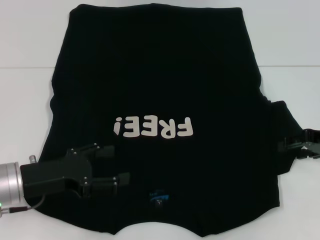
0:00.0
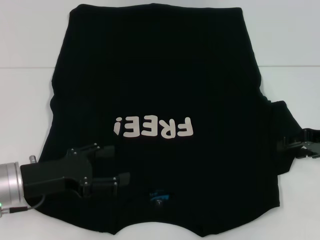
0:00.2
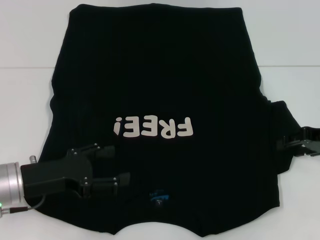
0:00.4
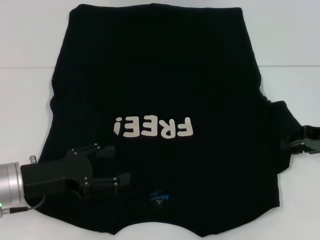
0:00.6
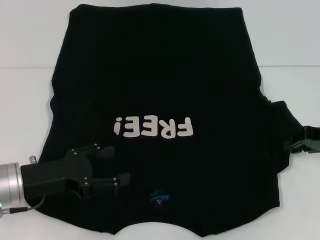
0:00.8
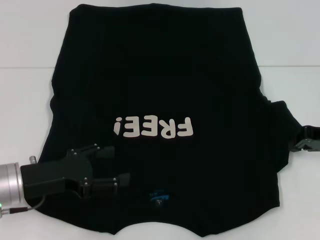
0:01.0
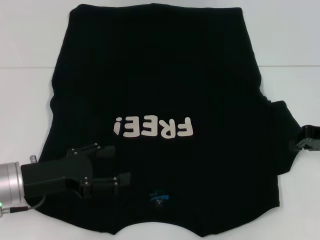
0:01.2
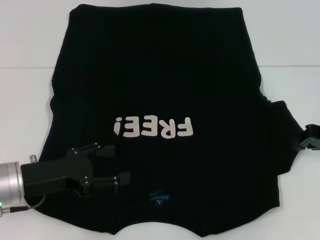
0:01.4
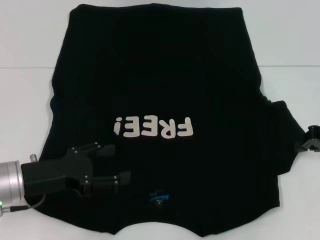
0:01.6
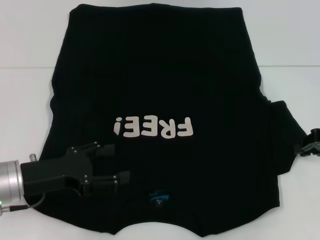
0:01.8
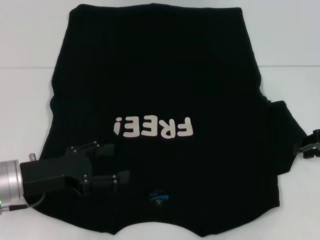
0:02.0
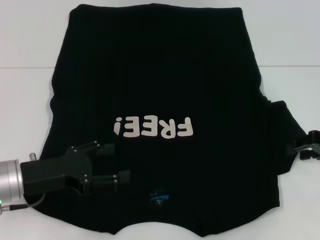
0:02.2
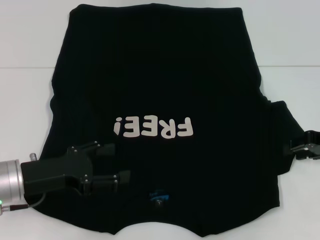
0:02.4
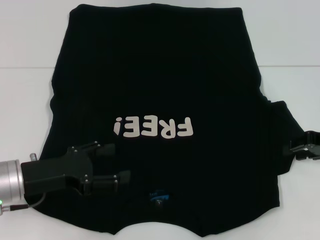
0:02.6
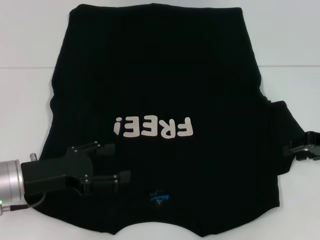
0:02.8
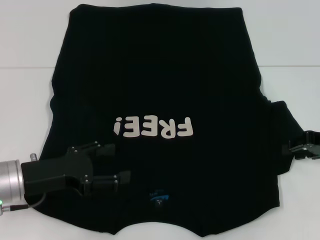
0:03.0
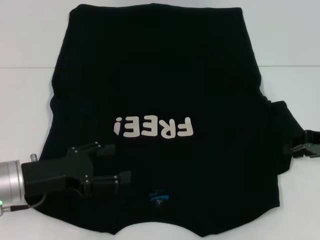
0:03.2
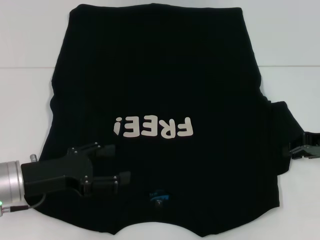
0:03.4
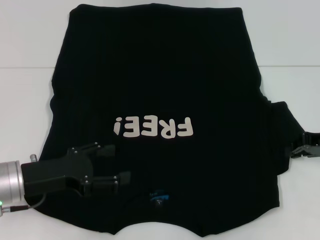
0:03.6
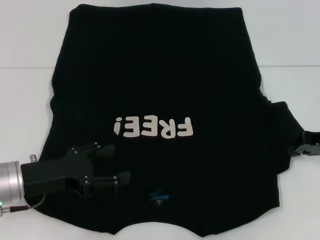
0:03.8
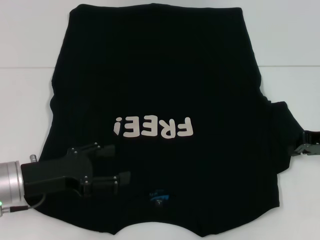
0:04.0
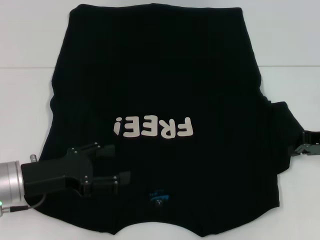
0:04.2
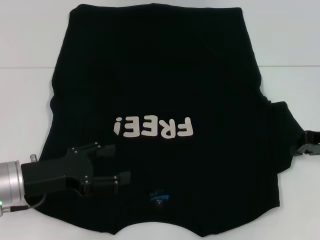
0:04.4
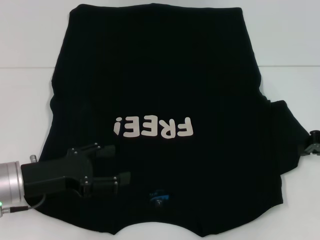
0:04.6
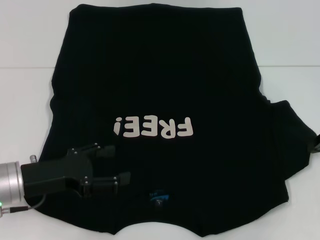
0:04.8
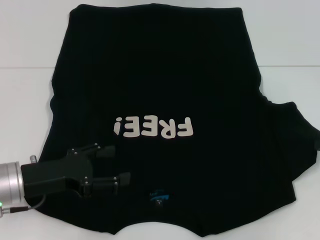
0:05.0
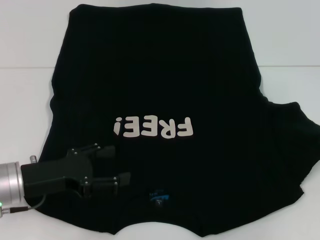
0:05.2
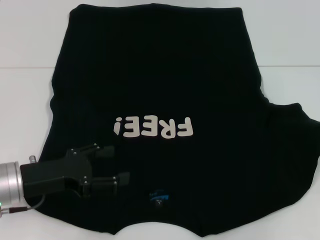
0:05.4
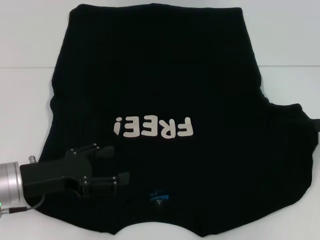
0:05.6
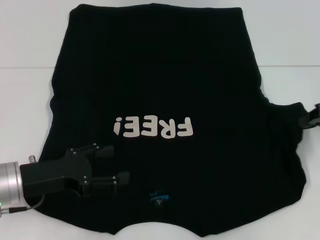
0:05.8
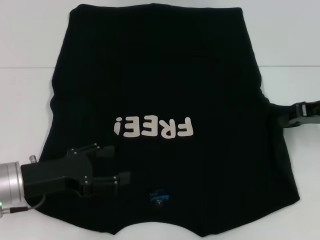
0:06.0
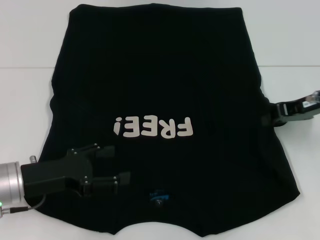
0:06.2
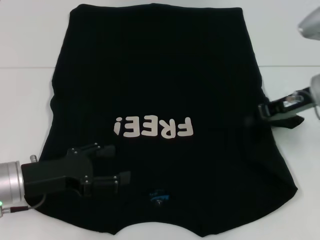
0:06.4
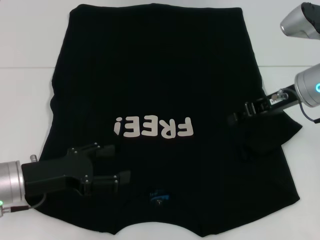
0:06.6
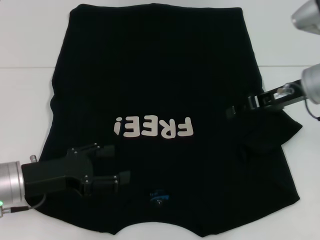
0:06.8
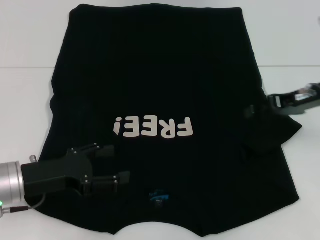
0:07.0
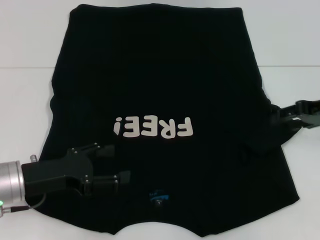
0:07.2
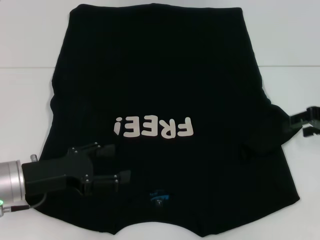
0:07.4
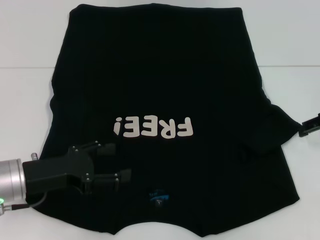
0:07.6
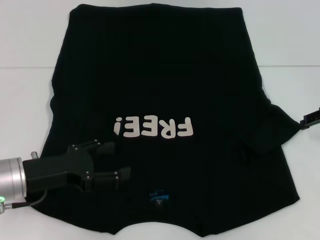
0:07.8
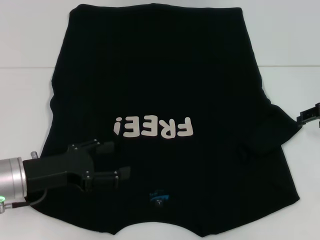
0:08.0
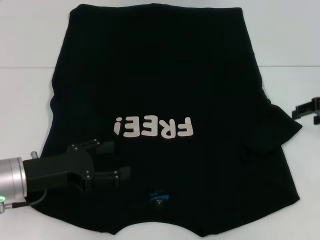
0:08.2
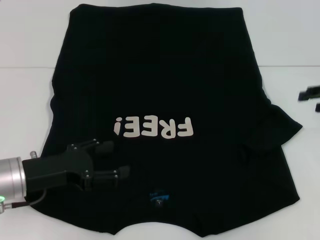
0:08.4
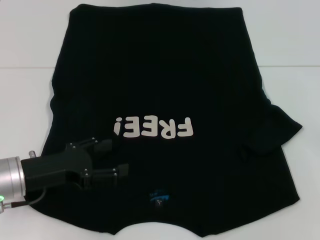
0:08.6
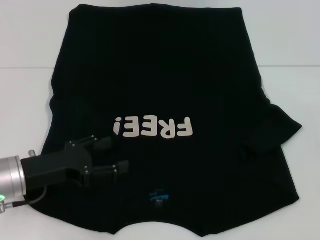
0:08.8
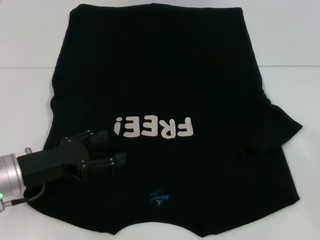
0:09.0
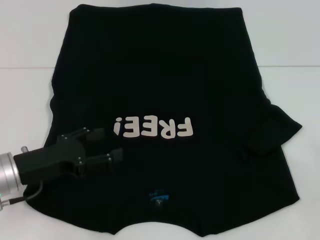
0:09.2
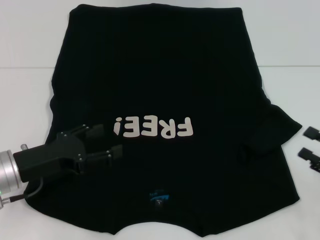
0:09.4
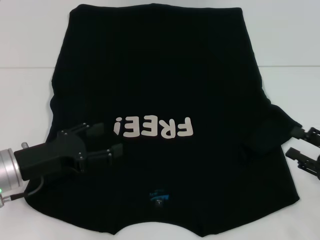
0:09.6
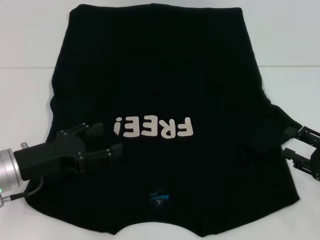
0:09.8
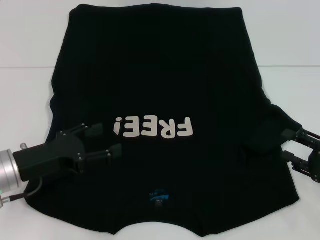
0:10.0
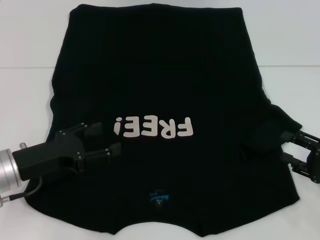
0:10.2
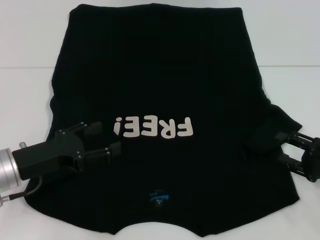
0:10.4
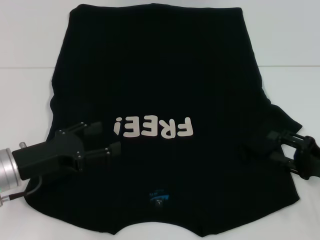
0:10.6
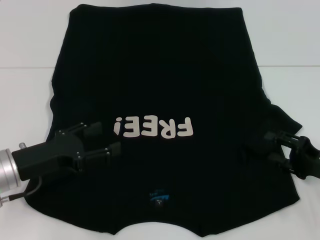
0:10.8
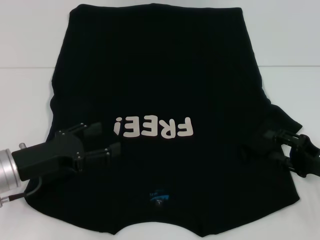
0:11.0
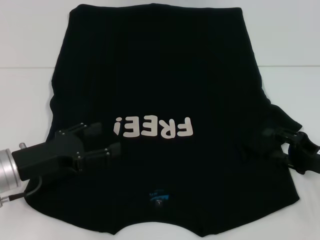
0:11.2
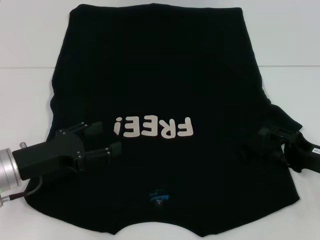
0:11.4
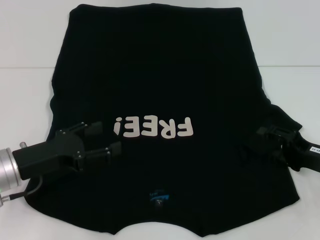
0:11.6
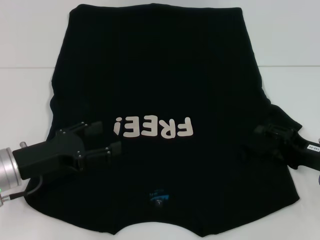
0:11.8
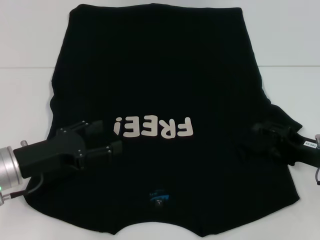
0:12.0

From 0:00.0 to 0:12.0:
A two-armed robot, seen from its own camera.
Step, from 0:00.0 to 0:06.6: Fold the bottom right sleeve with your right hand.
From 0:01.6 to 0:03.0: The right gripper opens up.
From 0:04.4 to 0:06.0: The right gripper ends up approximately 5 cm from where it was.
From 0:06.0 to 0:07.6: The right gripper goes to the left and returns, roughly 10 cm each way, and opens its fingers.
From 0:09.0 to 0:10.4: The right gripper heads to the left, covering about 5 cm.
From 0:10.4 to 0:12.0: The right gripper changes place by approximately 5 cm.

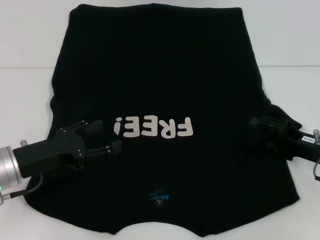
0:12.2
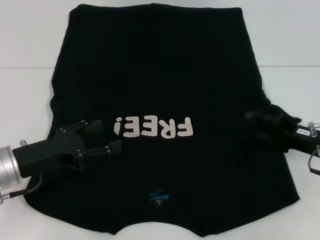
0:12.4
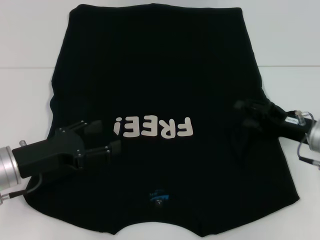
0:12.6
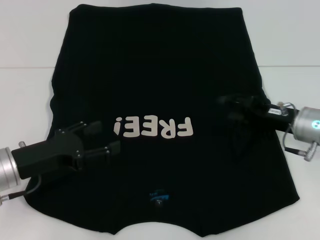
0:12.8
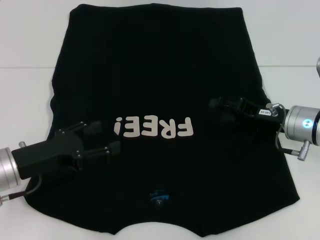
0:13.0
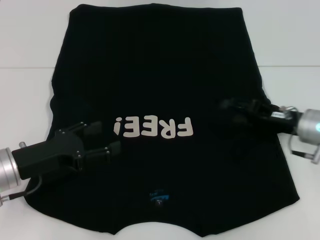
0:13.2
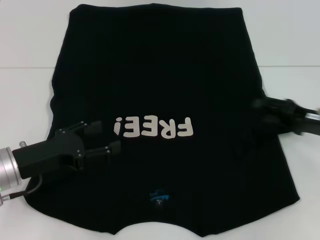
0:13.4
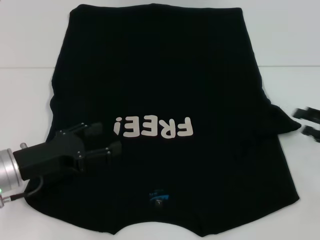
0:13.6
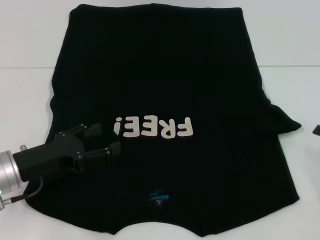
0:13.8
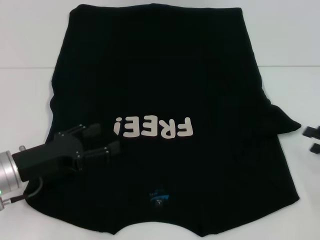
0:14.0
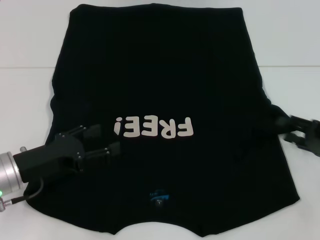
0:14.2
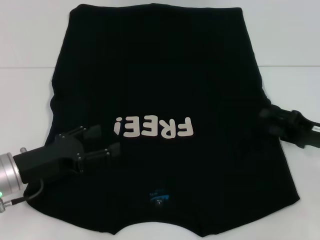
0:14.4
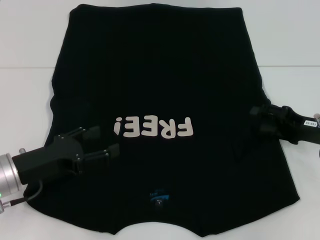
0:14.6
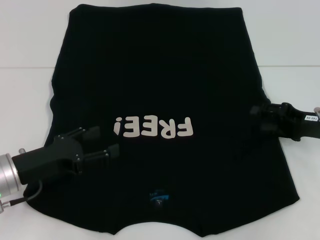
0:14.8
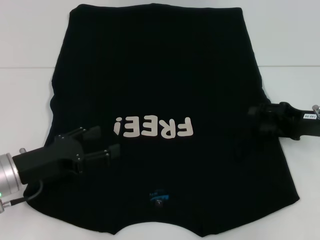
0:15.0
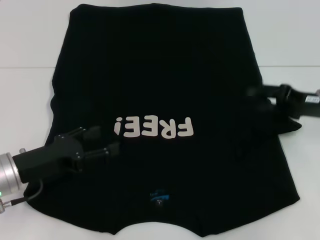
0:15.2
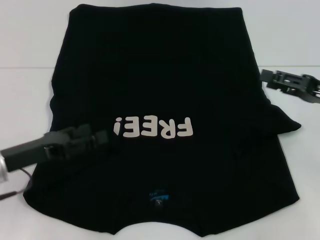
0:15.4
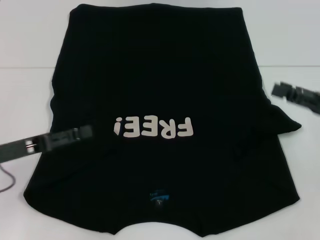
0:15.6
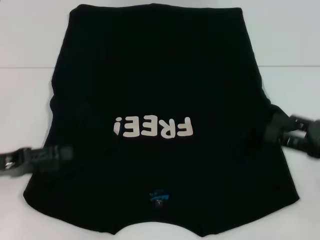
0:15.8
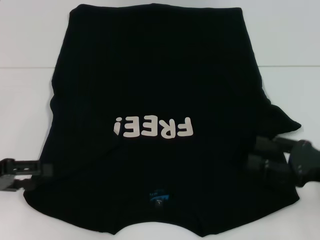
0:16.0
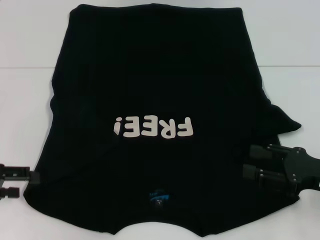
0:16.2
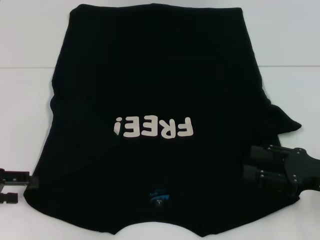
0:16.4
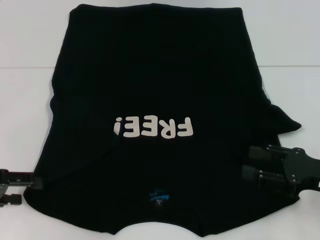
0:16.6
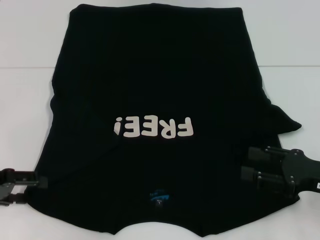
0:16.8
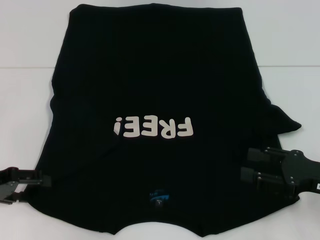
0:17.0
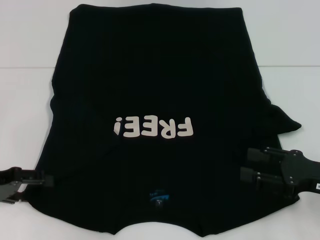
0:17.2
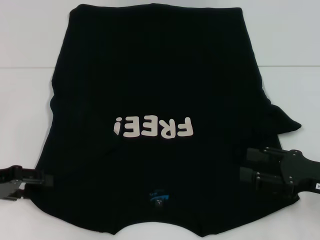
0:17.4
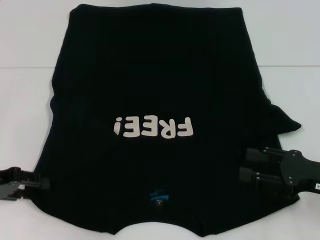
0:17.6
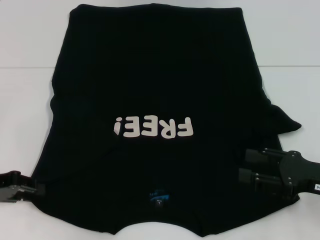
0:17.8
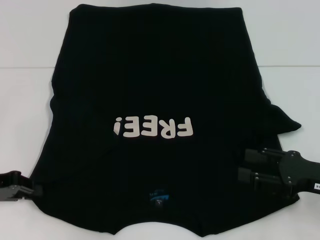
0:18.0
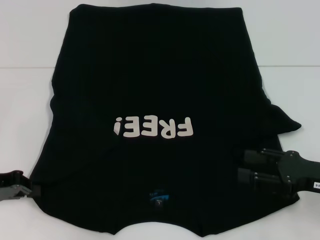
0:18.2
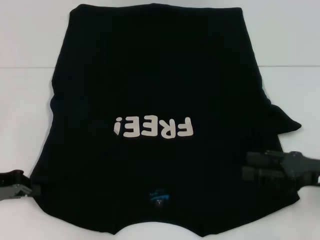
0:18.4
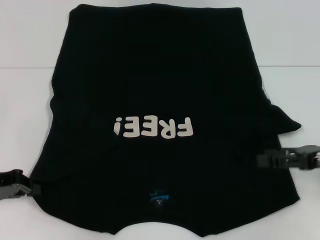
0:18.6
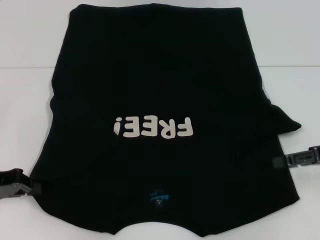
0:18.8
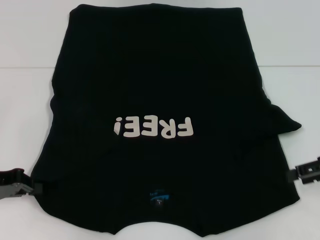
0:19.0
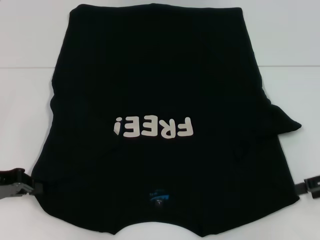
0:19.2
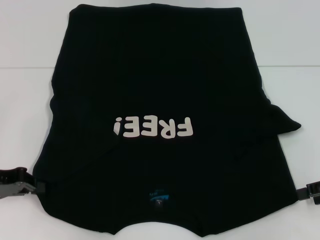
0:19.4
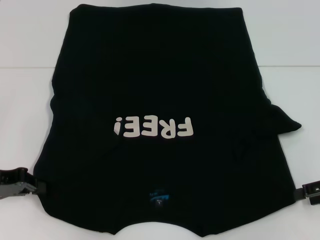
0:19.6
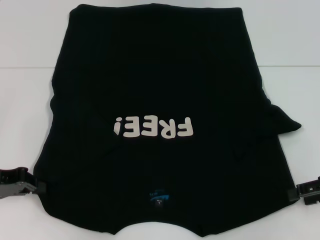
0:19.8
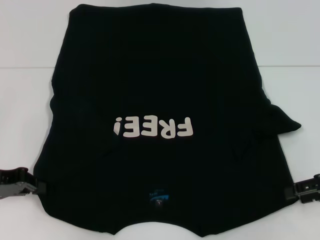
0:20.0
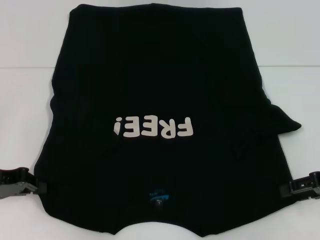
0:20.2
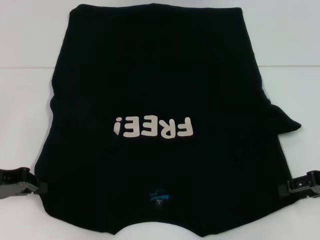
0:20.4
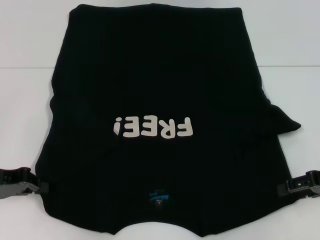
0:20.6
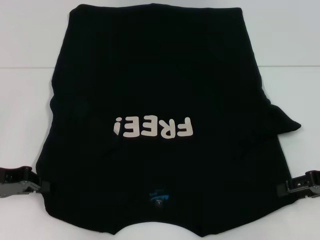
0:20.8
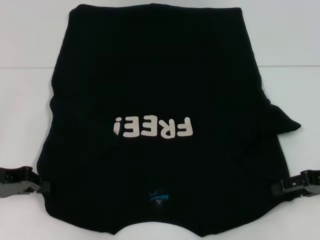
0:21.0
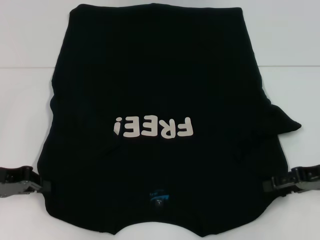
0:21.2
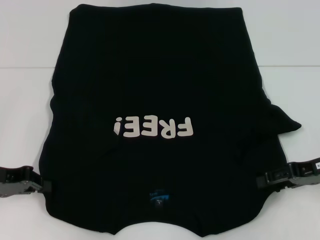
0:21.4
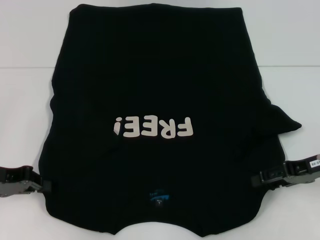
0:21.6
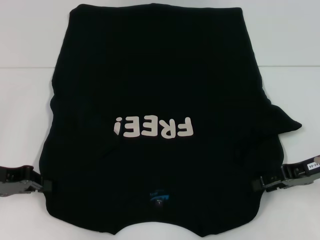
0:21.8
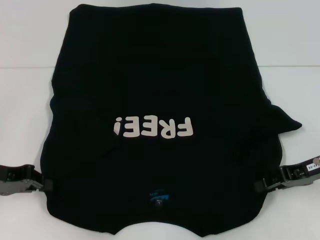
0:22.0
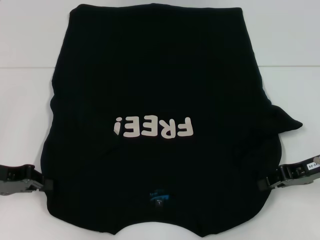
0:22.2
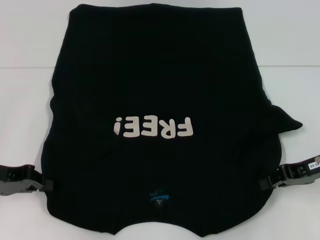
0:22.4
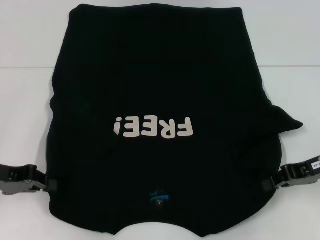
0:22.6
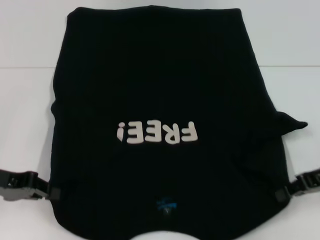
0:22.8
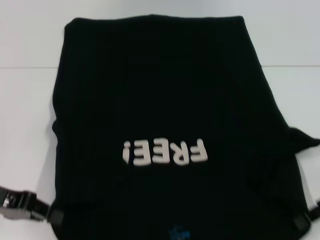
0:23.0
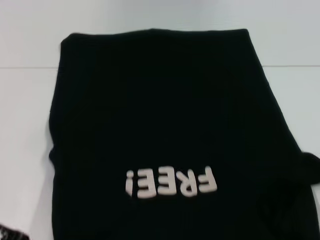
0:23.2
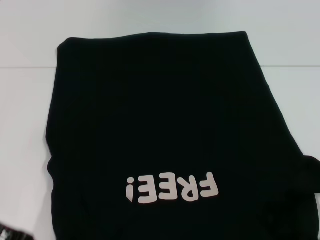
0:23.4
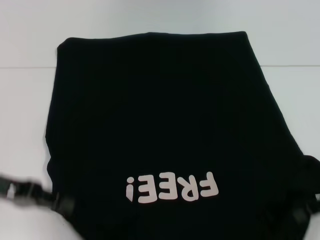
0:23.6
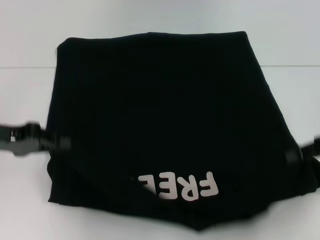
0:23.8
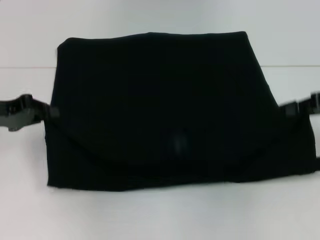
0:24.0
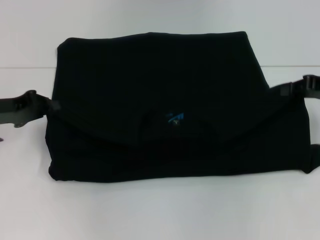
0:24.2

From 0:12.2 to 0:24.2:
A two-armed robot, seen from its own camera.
Step, from 0:12.2 to 0:18.0: Grab the bottom left corner with your left hand.
Step, from 0:18.2 to 0:21.0: Grab the bottom right corner with your right hand.
From 0:12.2 to 0:13.8: The right gripper is displaced to the right by some 10 cm.
From 0:13.8 to 0:15.2: The right gripper goes approximately 15 cm to the left, forward and upward.
From 0:15.2 to 0:16.6: The right gripper heads backward, covering roughly 10 cm. Meanwhile the left gripper travels to the left by approximately 10 cm.
From 0:16.6 to 0:18.2: The left gripper closes its fingers.
From 0:18.2 to 0:19.8: The right gripper goes some 5 cm to the right.
From 0:19.8 to 0:21.2: The grippers stay close to where they were, moving slightly.
From 0:21.2 to 0:22.6: The right gripper closes its fingers.
From 0:22.6 to 0:24.2: The right gripper goes roughly 10 cm upward and forward; the left gripper is displaced forward by approximately 5 cm.
